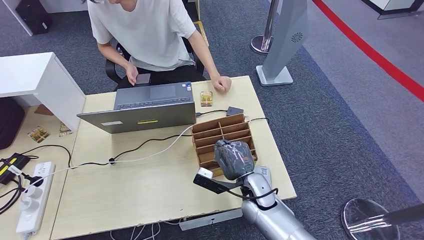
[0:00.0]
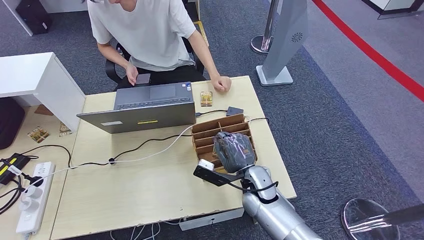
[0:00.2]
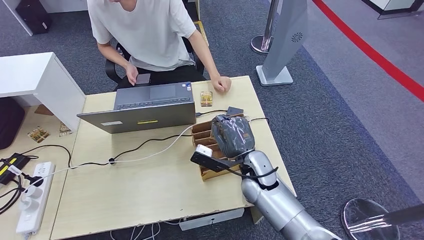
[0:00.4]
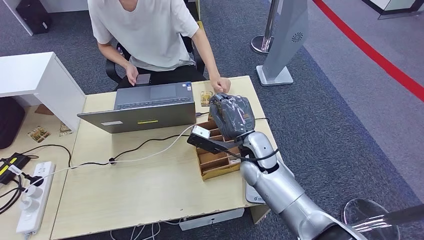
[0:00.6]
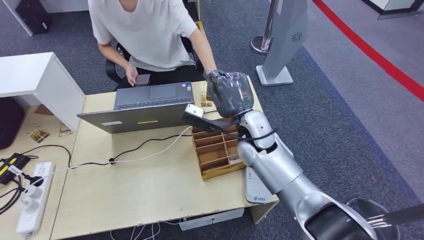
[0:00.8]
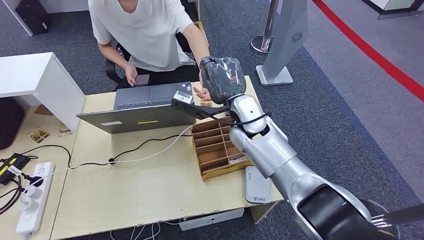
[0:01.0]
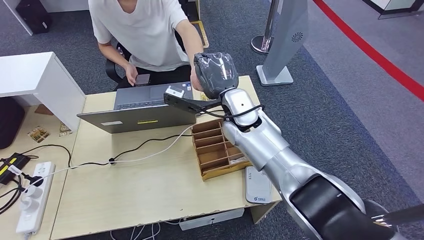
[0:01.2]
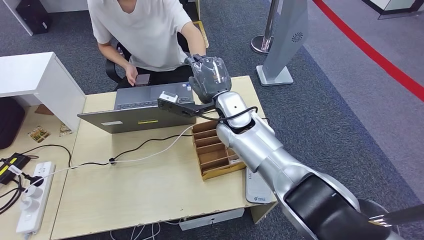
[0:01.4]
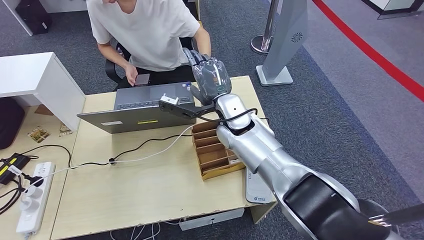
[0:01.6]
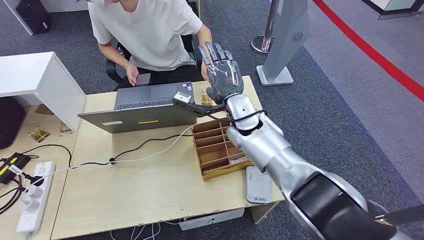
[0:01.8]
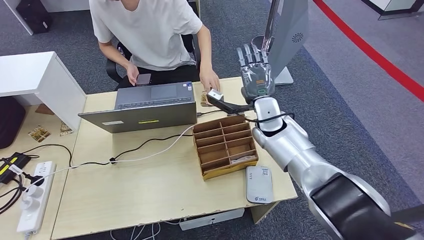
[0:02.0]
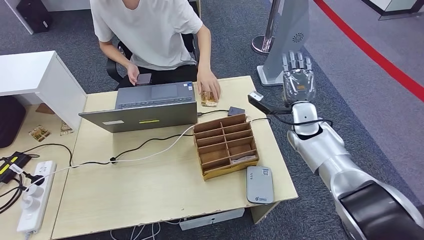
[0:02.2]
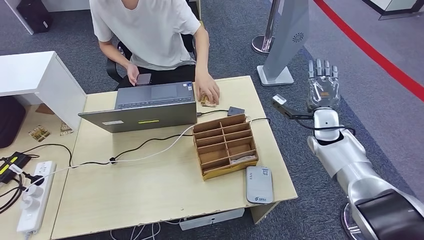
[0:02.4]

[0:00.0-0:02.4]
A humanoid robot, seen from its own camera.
Step, 0:00.2 to 0:02.4: Hand the room key to the person.
0:00.0 to 0:01.2: The right hand is displaced upward and forward by roughly 25 cm.
